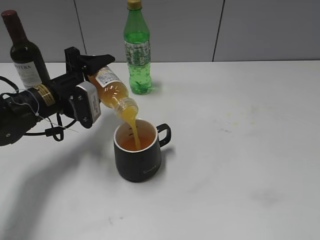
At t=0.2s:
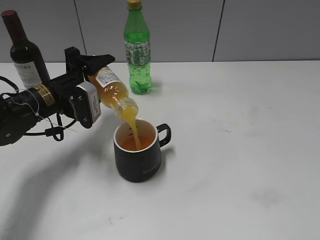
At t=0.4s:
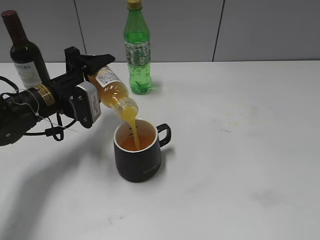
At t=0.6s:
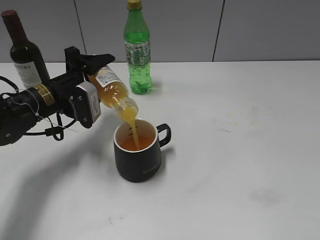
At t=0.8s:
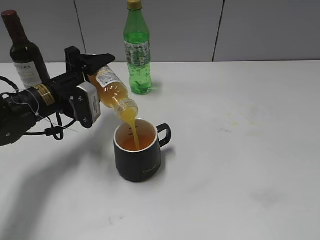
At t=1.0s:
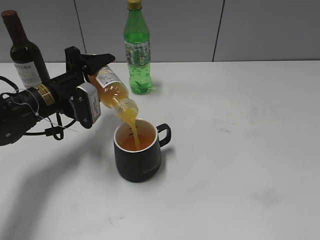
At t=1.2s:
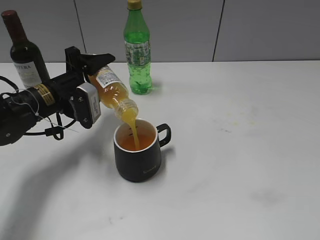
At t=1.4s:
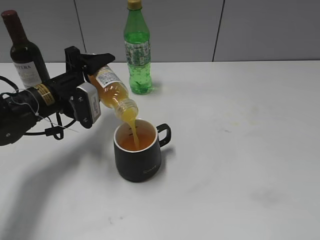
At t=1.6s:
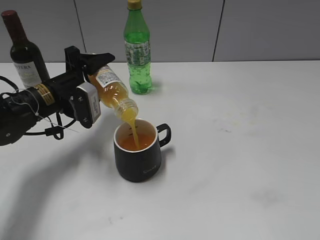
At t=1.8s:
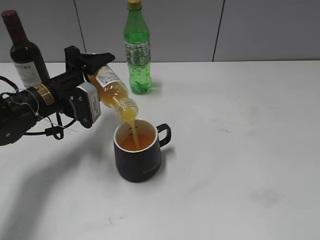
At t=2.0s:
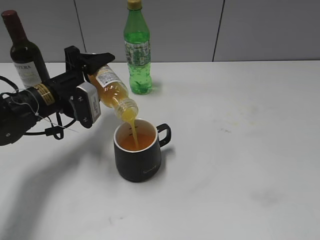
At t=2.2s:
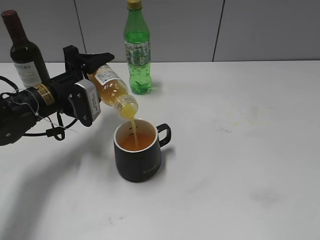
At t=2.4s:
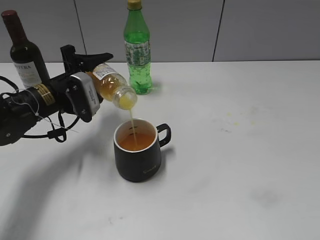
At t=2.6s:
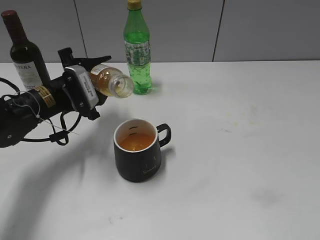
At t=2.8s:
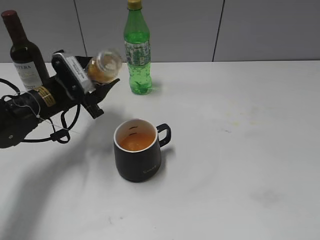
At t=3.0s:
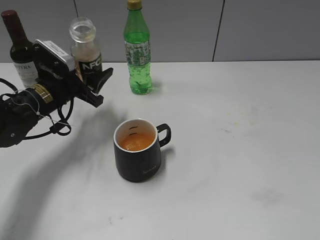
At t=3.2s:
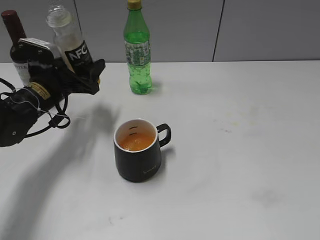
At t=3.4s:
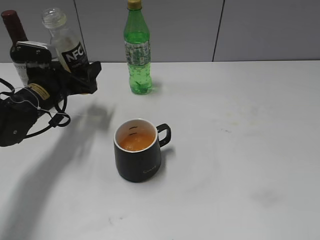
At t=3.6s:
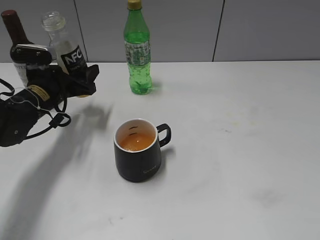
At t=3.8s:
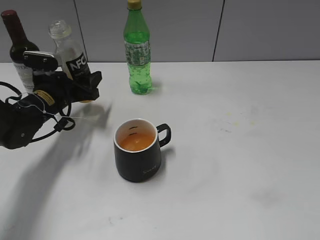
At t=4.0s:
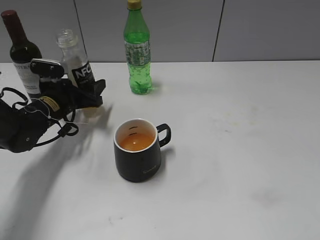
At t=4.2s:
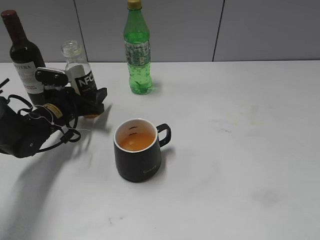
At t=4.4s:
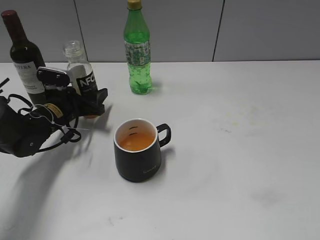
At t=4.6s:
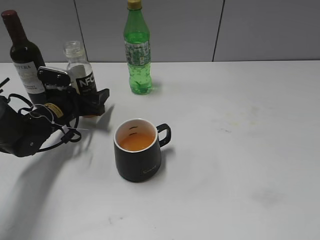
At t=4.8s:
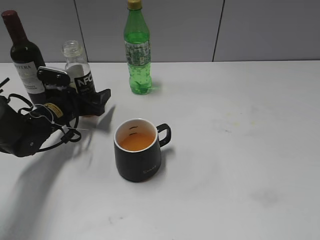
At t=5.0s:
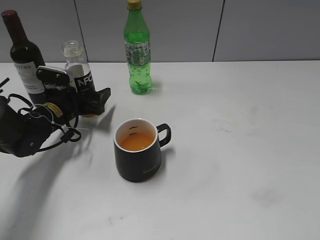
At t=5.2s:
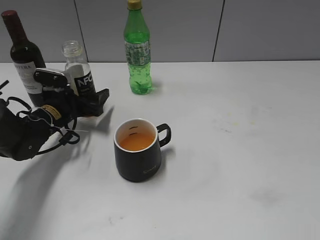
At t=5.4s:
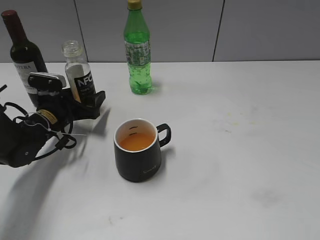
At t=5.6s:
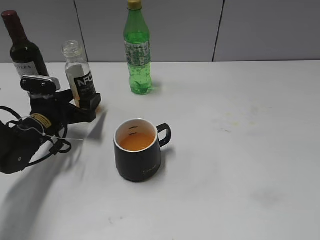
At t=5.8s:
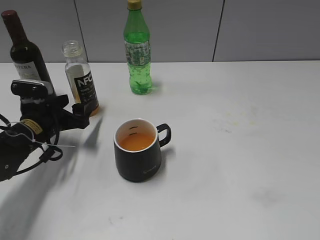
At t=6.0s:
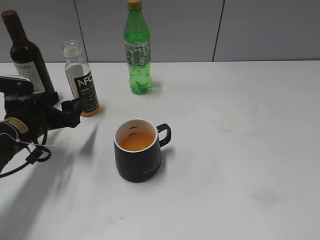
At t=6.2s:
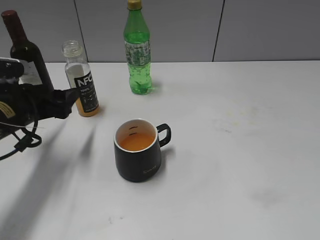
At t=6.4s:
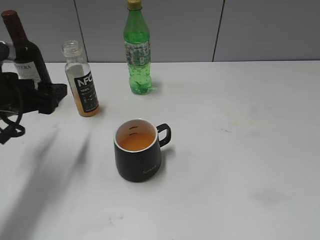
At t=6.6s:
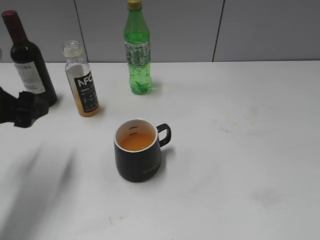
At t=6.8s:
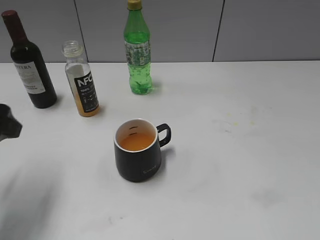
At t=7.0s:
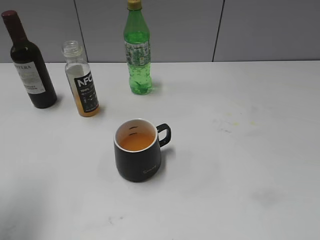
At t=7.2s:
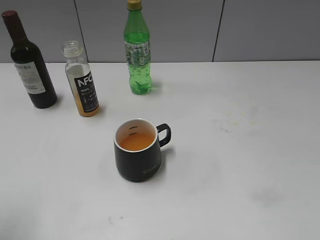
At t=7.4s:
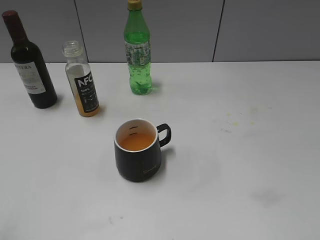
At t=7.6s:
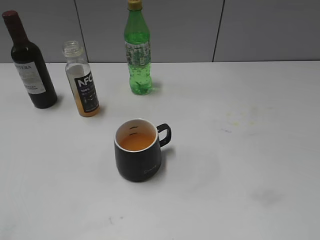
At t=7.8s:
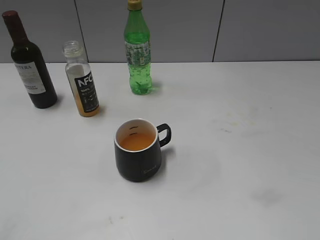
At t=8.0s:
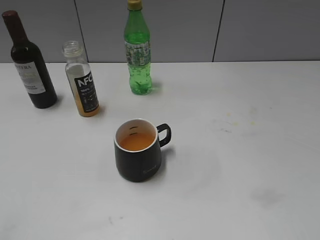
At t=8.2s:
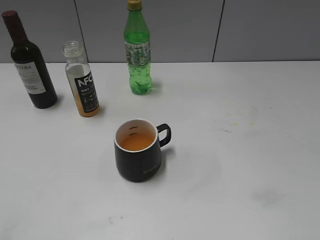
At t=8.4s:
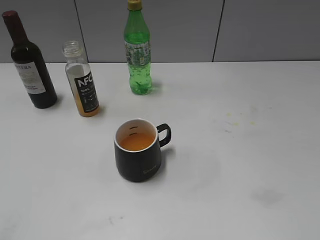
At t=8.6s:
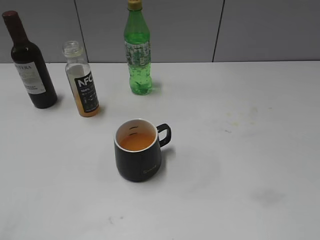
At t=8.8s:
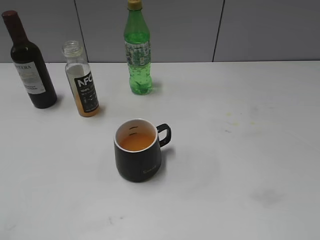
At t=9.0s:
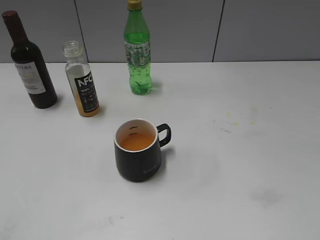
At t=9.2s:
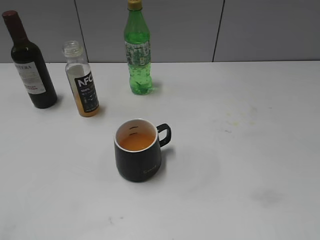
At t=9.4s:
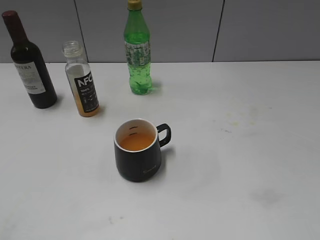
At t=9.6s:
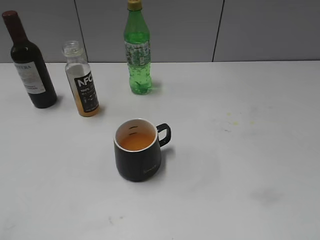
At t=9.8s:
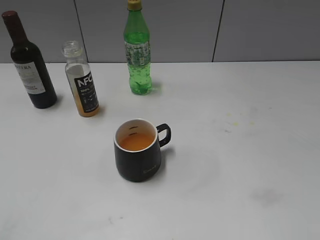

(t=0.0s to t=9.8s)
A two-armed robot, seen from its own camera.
Step, t=0.0s - t=2.4s: Pour the orange juice from bottle to cup with left gripper.
Step, t=2.6s - t=4.8s: Place the orange juice bottle on the table with left gripper.
t=0.0s - t=1.4s: Neither gripper changes place.
t=2.8s - t=4.2s: The left gripper shifts approximately 5 cm downward.
t=4.2s - t=5.6s: The left gripper opens up.
t=5.6s - t=7.0s: The left gripper shifts some 25 cm upward and backward.
t=7.0s - t=8.4s: The left gripper moves backward, some 20 cm.
